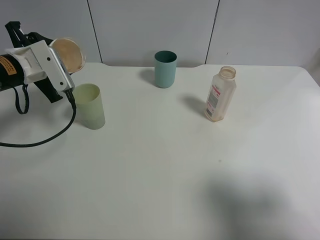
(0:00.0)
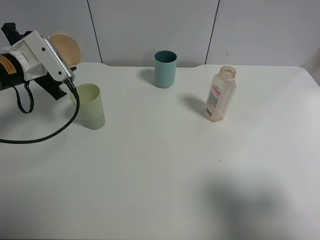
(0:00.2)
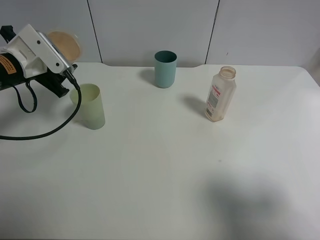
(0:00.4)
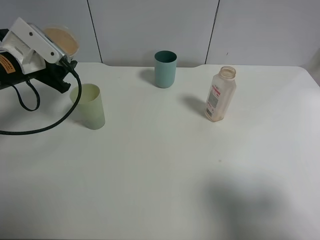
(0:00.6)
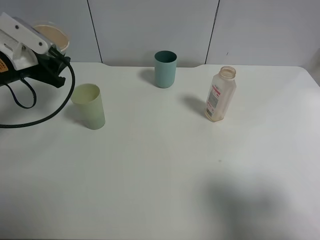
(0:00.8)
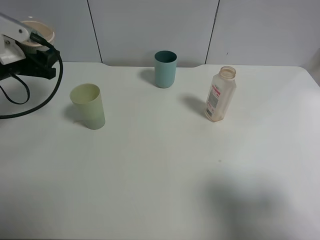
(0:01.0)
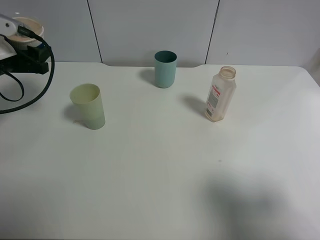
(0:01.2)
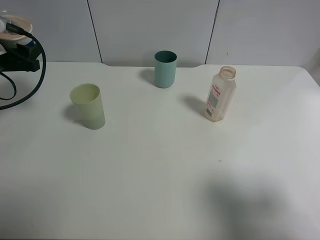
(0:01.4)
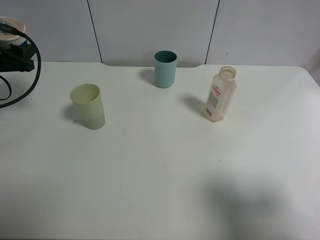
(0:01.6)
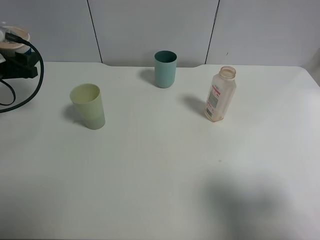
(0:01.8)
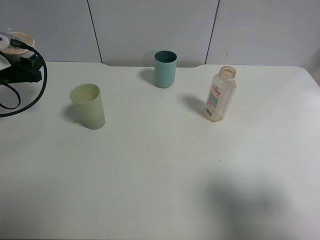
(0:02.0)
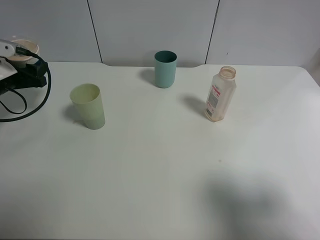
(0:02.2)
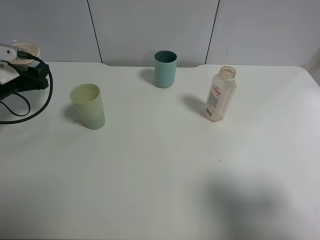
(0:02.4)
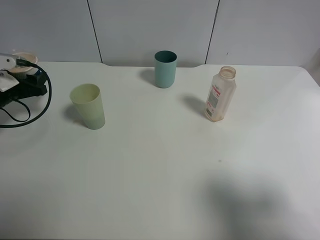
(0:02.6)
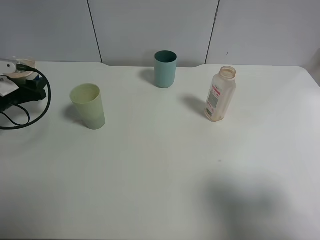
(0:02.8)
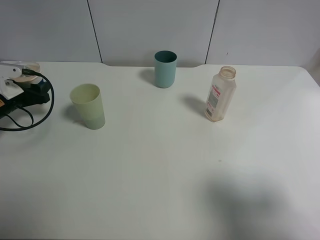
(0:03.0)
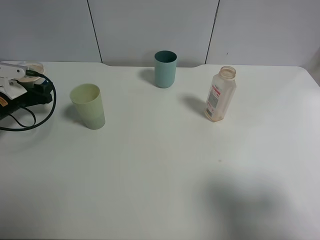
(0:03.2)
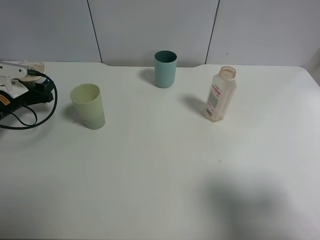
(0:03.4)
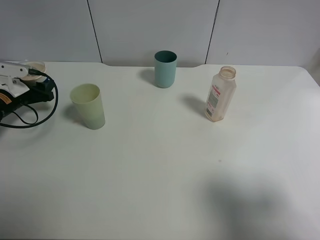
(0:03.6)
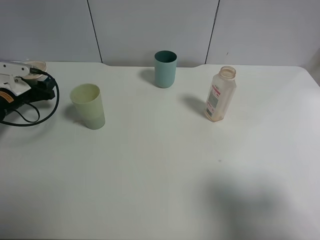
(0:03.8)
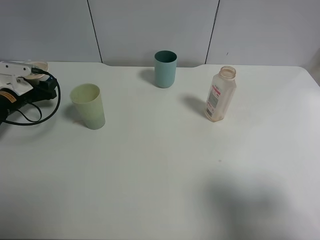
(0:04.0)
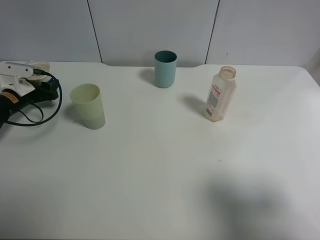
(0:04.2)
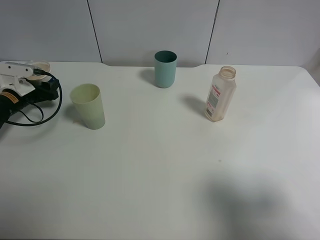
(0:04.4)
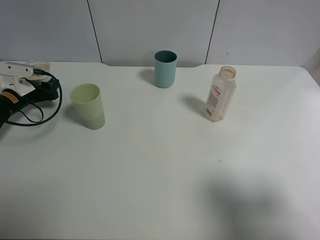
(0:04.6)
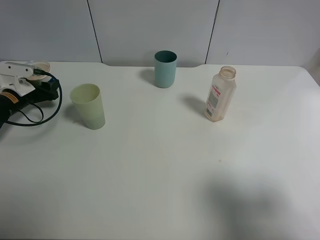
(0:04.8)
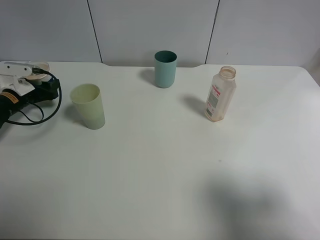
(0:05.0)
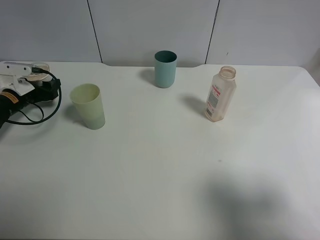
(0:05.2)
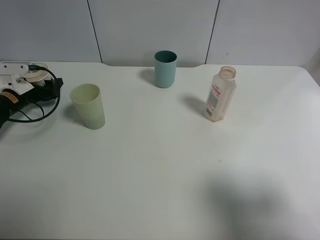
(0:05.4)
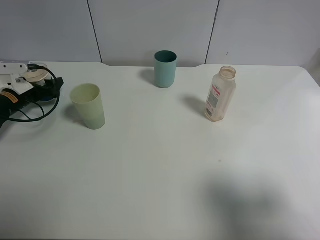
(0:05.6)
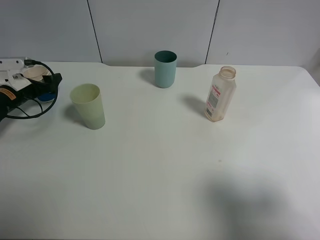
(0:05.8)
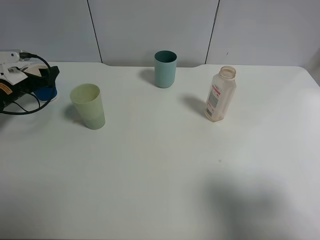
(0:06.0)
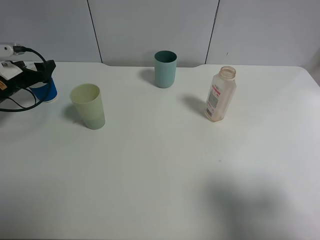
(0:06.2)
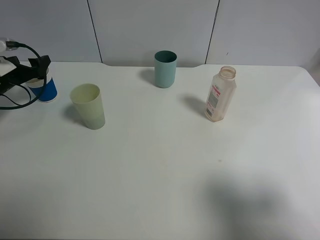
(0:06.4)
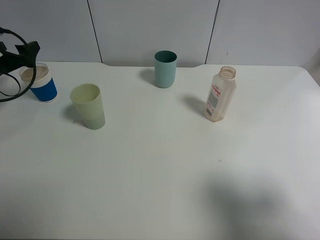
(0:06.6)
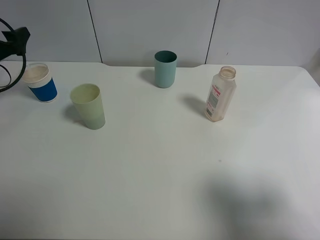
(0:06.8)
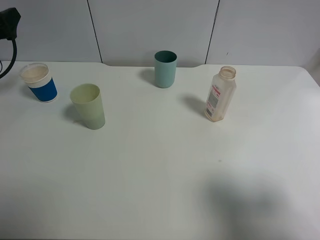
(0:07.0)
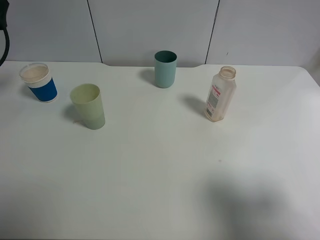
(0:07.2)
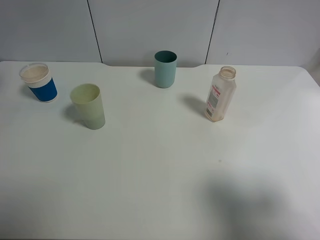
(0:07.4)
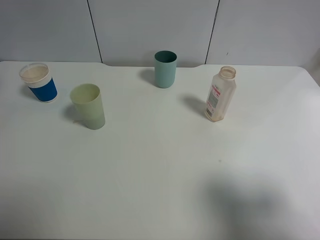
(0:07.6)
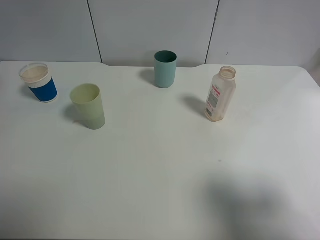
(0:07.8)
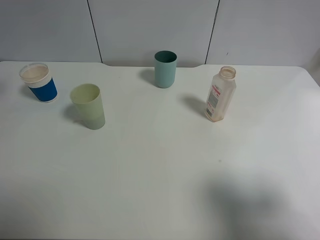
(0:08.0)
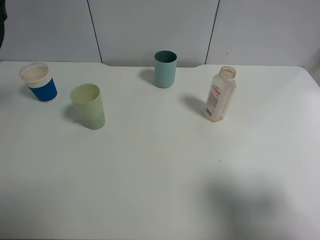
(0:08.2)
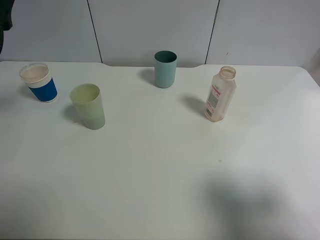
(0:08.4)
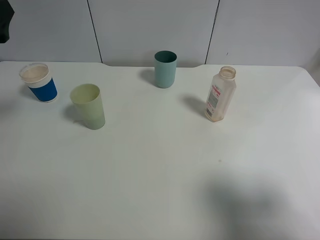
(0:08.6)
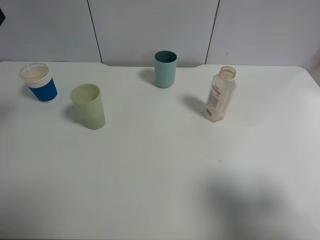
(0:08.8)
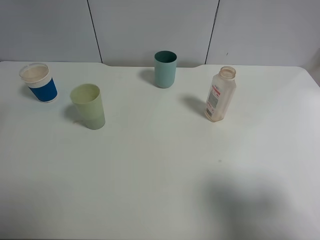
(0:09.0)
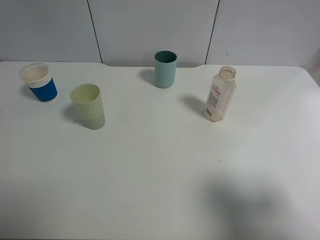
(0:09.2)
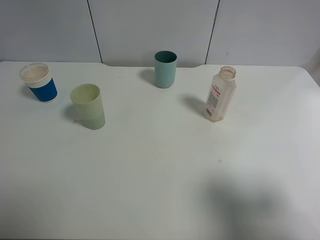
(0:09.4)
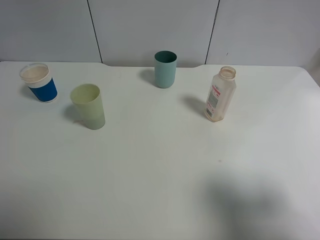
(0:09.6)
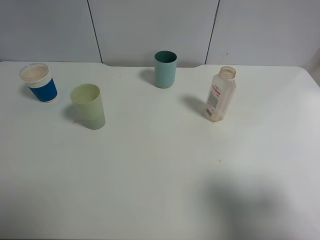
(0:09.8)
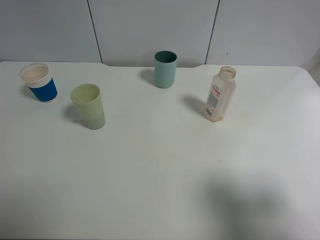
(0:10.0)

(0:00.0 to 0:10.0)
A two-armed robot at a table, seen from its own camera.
Task of the whole recording: use a clamp to hold the bottle of the drink, pour the beverage into a random cup, then clamp the cup containing the drink and pour the drink into another random cup.
Step, 0:00.2 - 0:06.4: Place the paper cup on the table with left gripper.
0:00.0 - 0:01.4: The left gripper goes roughly 5 cm to the left.
0:01.4 - 0:02.8: The left gripper is displaced downward by about 10 cm.
0:02.8 - 0:04.2: The left gripper travels forward by about 5 cm.
0:04.2 - 0:05.8: The left gripper opens up.
0:05.8 - 0:07.2: The left gripper shifts roughly 15 cm upward.
0:08.6 - 0:10.0: The left gripper shifts some 20 cm backward.

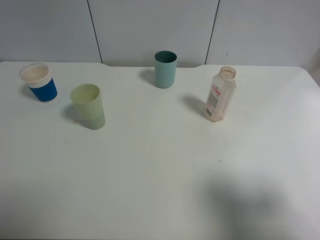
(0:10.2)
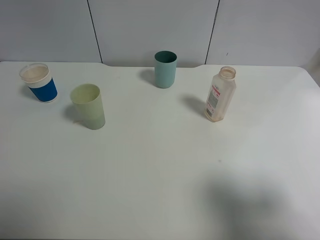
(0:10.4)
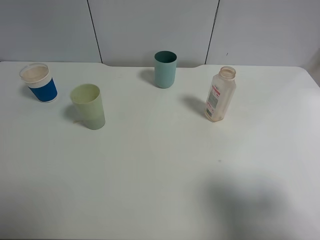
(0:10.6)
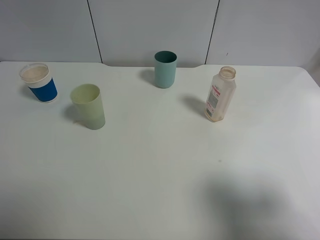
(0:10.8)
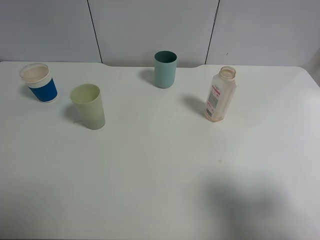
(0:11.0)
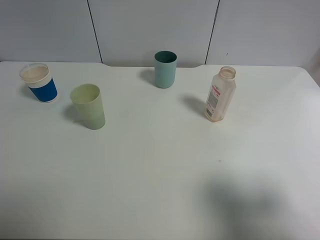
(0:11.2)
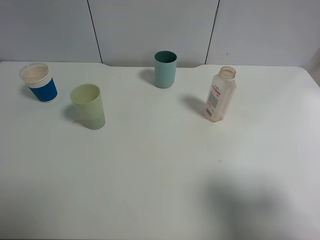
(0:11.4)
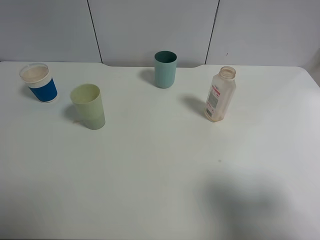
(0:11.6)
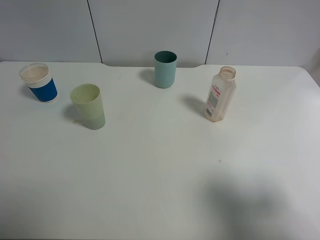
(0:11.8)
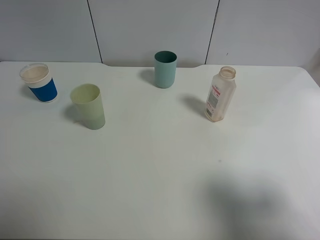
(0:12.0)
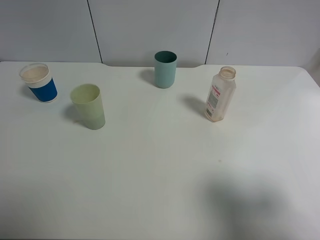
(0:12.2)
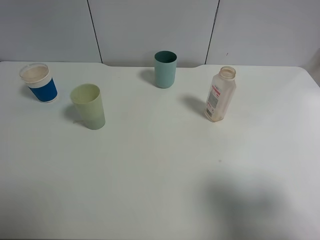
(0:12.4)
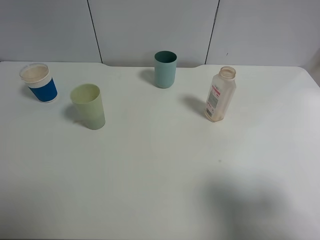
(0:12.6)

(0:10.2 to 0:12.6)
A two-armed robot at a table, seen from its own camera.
Task of the whole recording: use a clamp to hold the bottle of the drink, pour the beverage into a random cup, then clamp the cup containing the drink and pour the drink into another random cup.
0:11.4 - 0:12.6: The two grippers keep their place.
